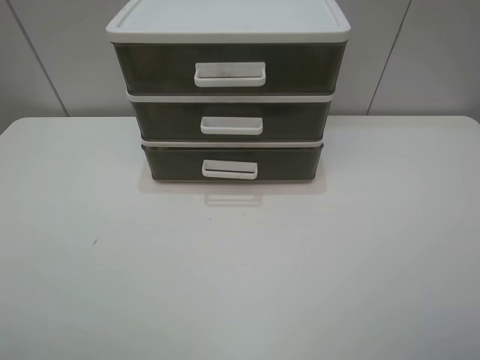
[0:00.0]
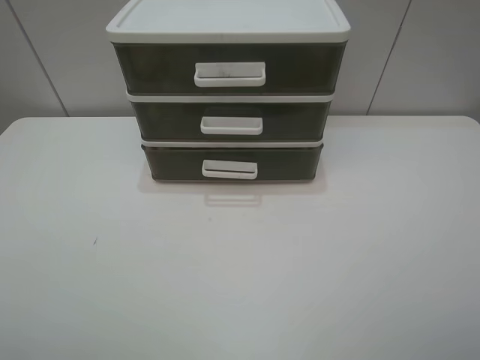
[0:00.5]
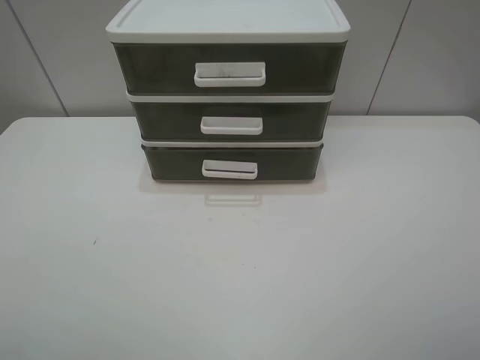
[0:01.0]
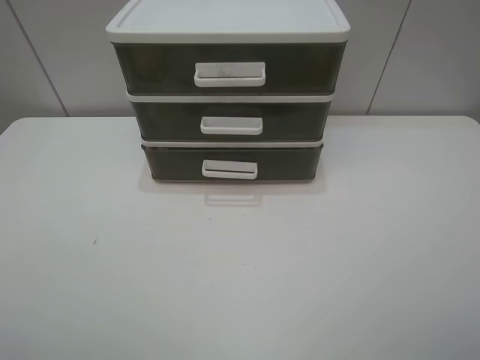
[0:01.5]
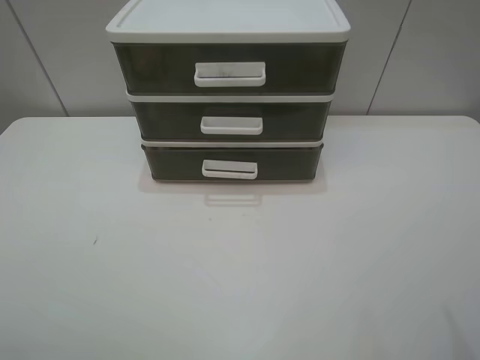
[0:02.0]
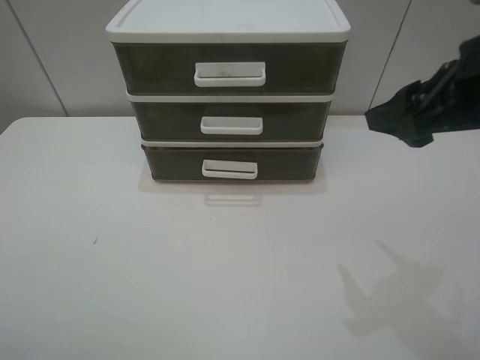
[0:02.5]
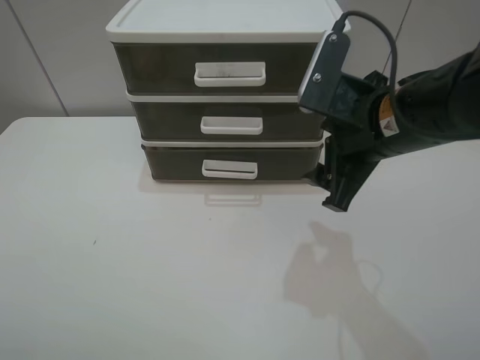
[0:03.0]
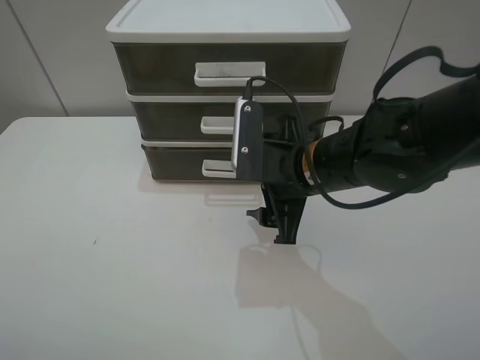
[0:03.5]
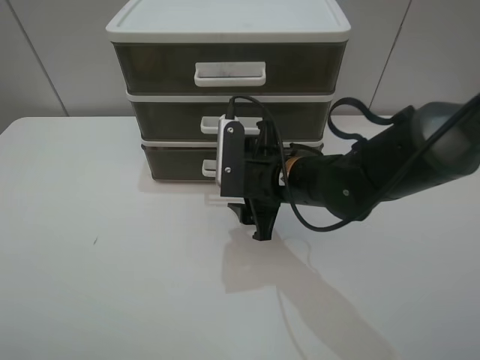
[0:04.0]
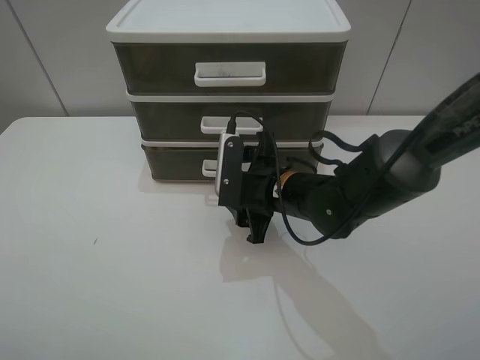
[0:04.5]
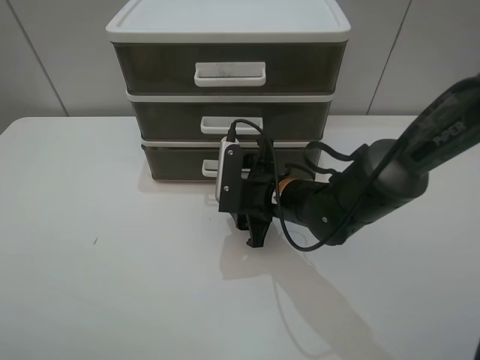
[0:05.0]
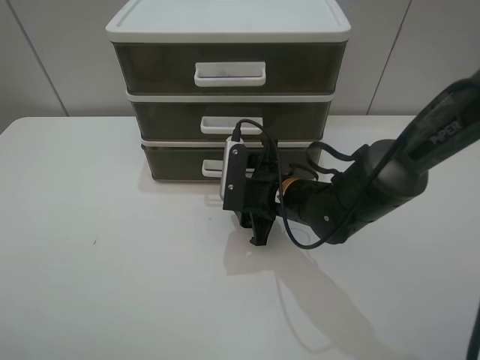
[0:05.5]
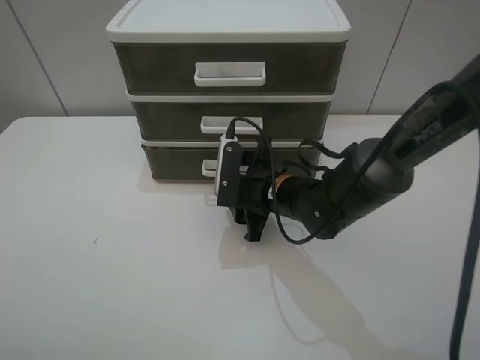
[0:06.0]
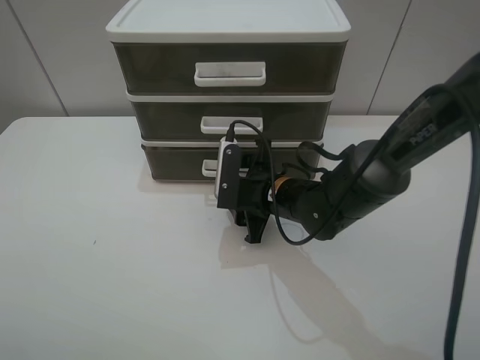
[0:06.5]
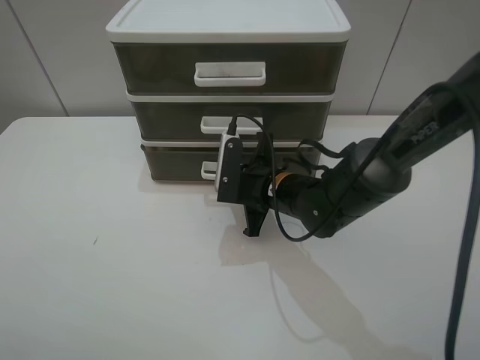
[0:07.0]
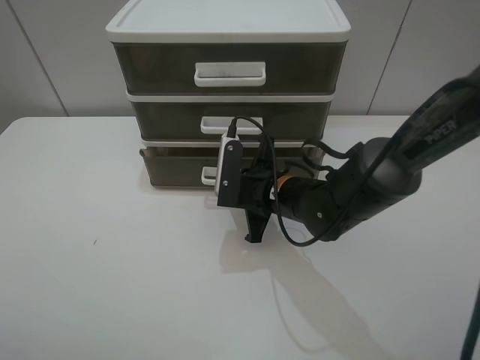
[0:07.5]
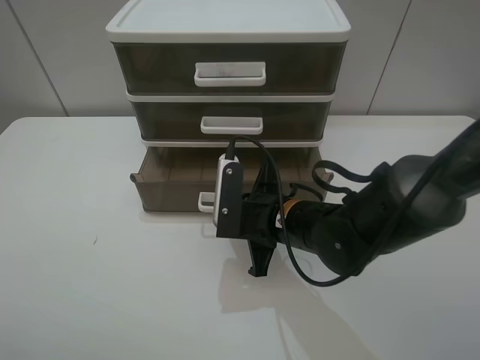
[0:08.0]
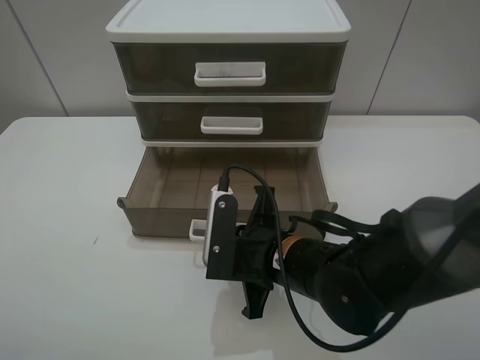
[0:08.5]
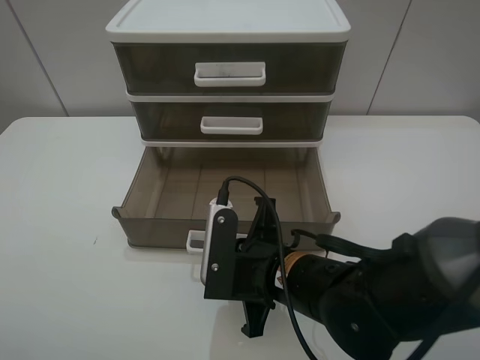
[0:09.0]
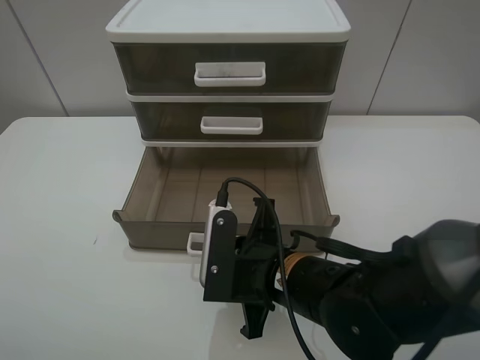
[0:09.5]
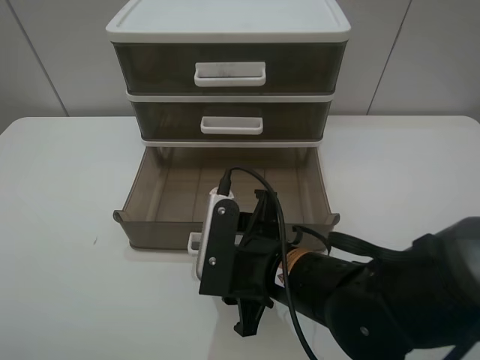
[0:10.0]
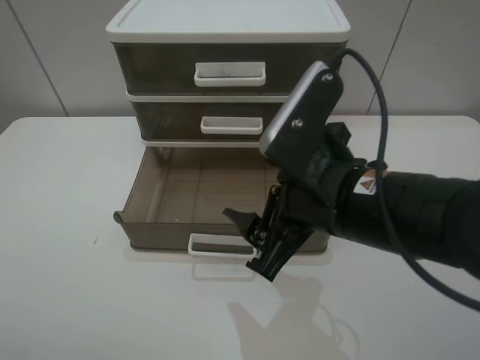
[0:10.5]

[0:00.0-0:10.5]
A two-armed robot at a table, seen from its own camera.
Task of the whole recording: open the bottom drawer.
Step, 0:00.0 to 0:07.0: Grab the bottom drawer with the right gripper.
Step, 0:07.5 to 0:10.0: Pull open the drawer with the right gripper.
0:02.0 to 0:04.0: The right gripper shifts some 35 cm to the left, downward and forward.
0:04.0 to 0:06.5: The right gripper heads downward, covering approximately 5 cm.
0:06.5 to 0:08.5: The right gripper moves backward, some 10 cm, and closes its fingers.
0:08.5 to 0:10.5: The right gripper is displaced upward and to the right by roughly 15 cm, and opens its fingers.

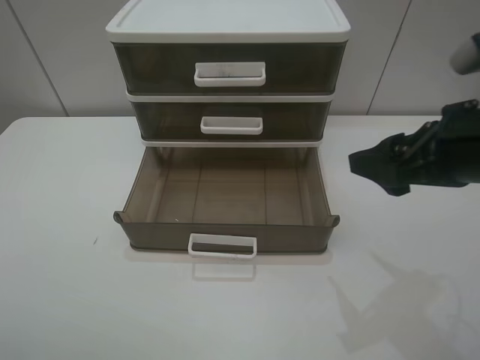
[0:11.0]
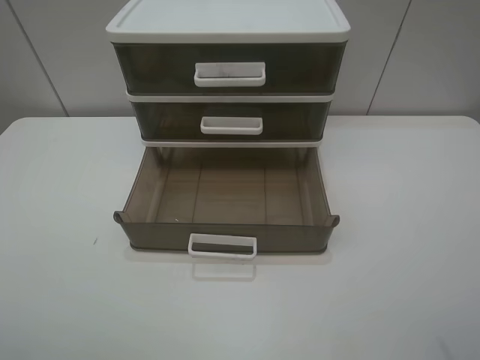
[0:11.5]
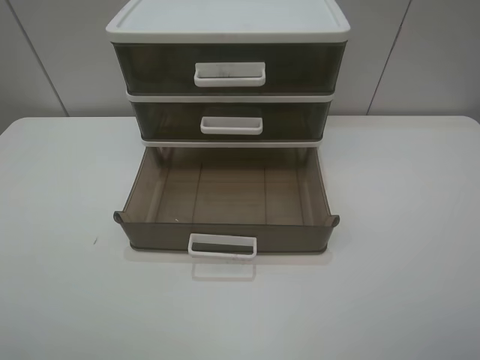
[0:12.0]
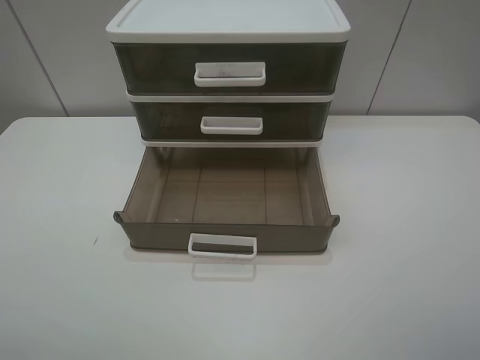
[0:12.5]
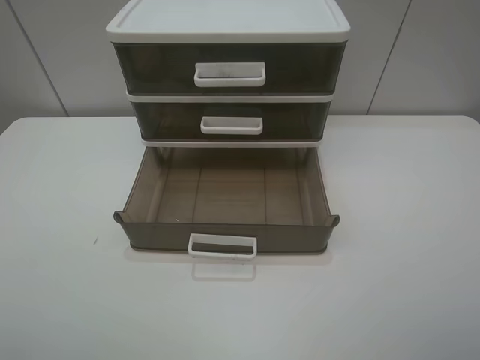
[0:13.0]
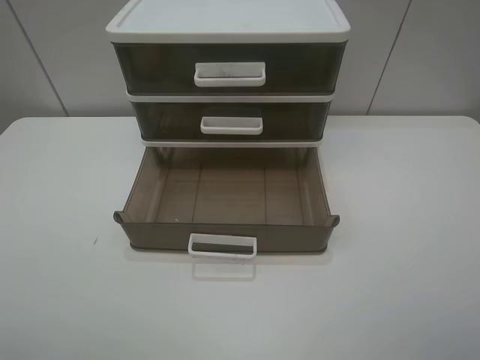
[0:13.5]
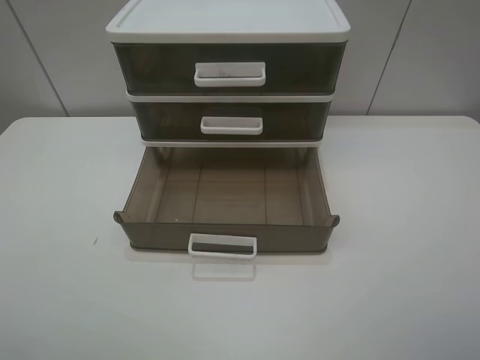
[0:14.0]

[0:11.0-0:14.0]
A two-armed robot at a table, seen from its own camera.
Task of the whole recording: open the bottom drawer.
0:11.0 to 0:12.5: The right gripper heads backward and to the right, covering roughly 20 cm.
0:12.5 to 0:14.0: Neither gripper changes place.
